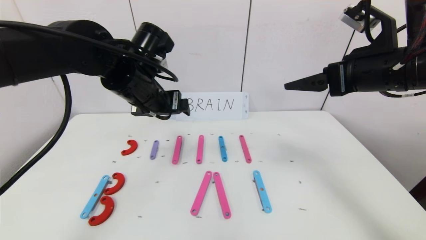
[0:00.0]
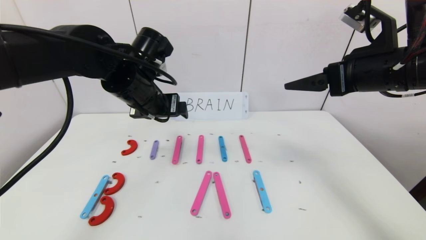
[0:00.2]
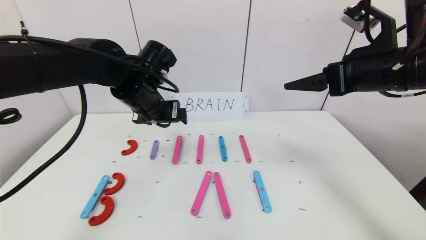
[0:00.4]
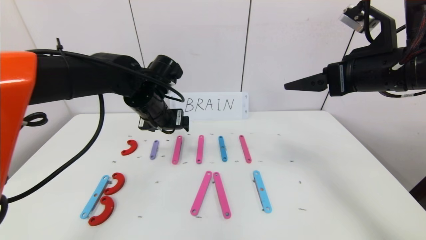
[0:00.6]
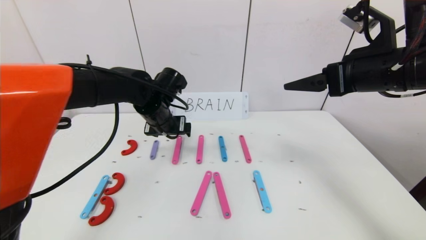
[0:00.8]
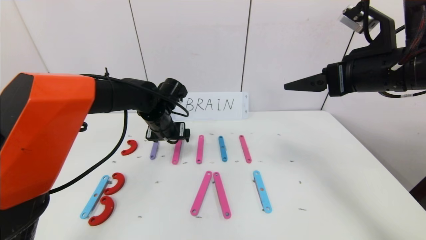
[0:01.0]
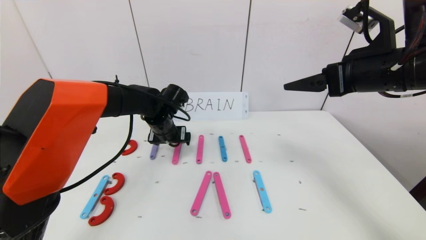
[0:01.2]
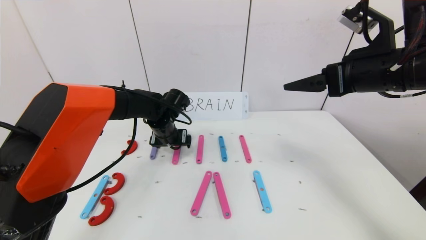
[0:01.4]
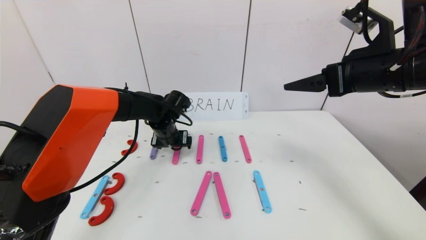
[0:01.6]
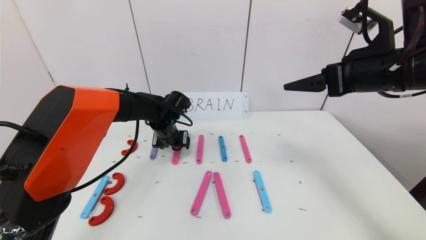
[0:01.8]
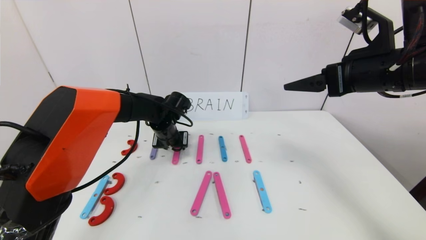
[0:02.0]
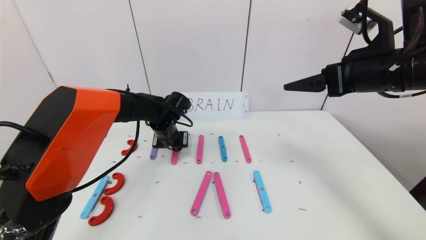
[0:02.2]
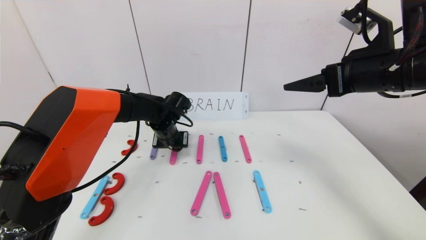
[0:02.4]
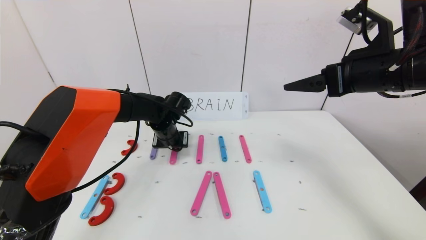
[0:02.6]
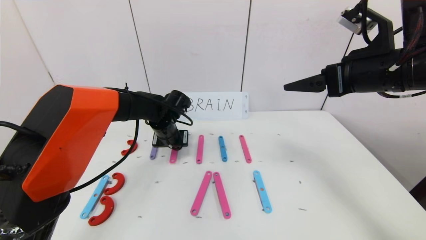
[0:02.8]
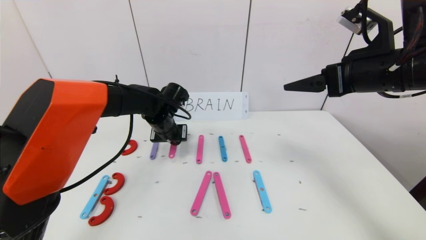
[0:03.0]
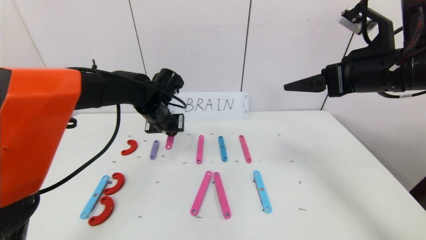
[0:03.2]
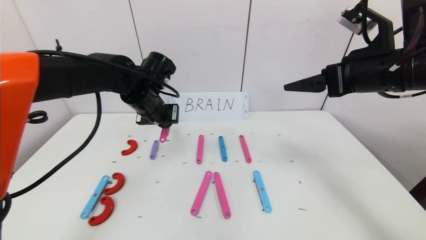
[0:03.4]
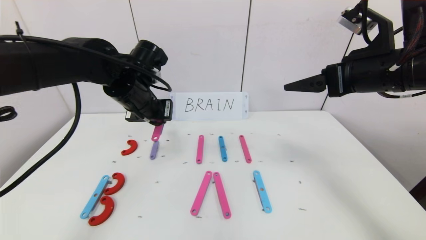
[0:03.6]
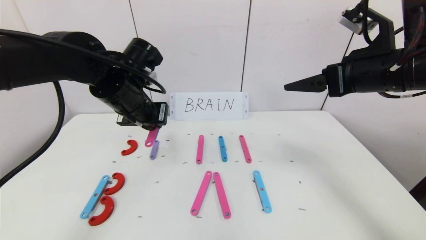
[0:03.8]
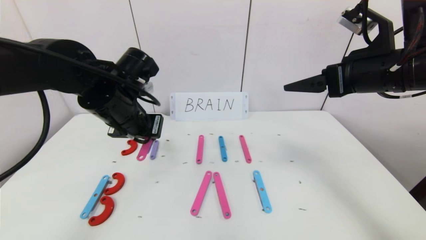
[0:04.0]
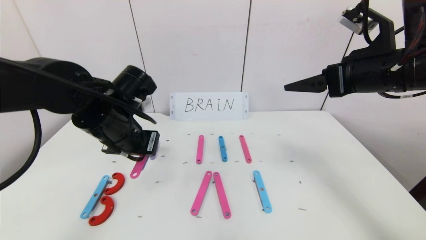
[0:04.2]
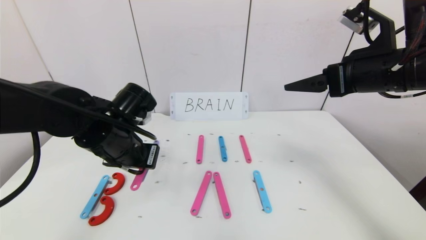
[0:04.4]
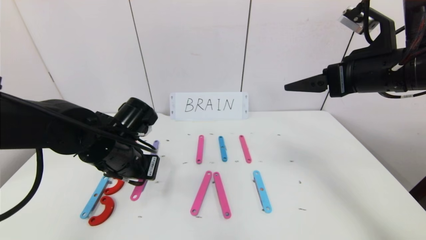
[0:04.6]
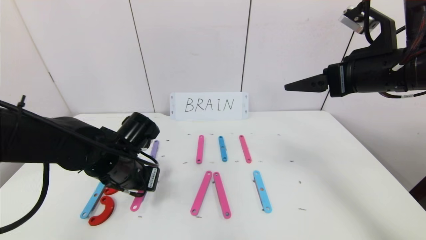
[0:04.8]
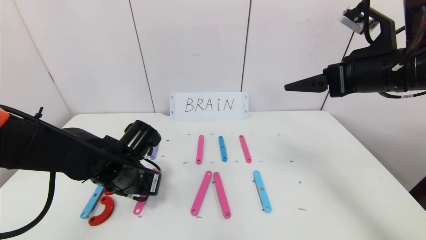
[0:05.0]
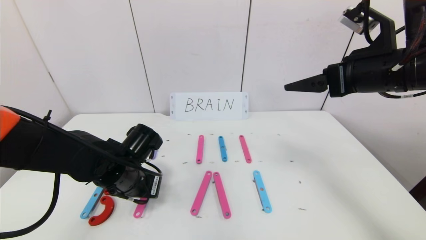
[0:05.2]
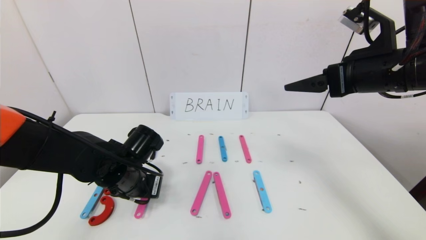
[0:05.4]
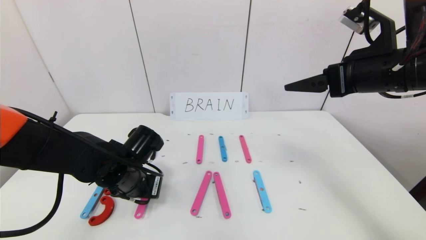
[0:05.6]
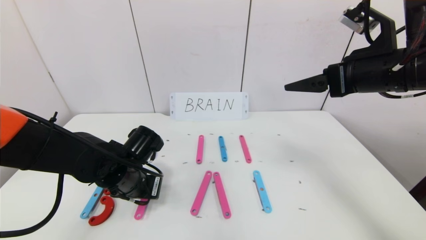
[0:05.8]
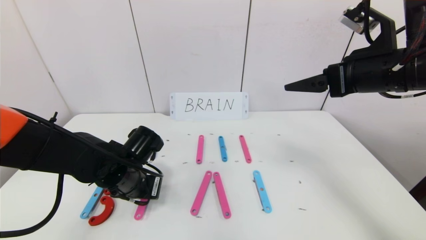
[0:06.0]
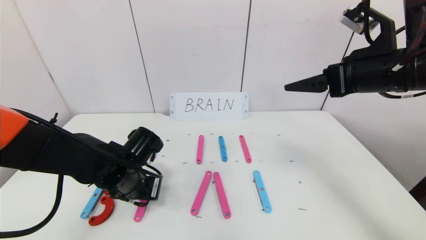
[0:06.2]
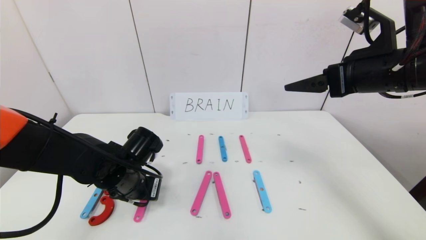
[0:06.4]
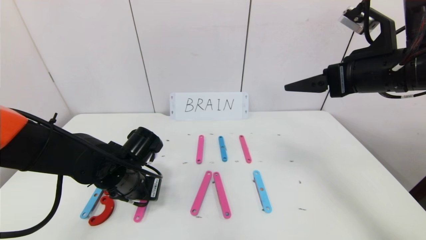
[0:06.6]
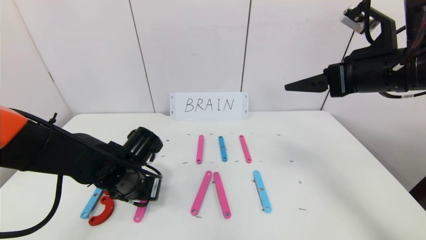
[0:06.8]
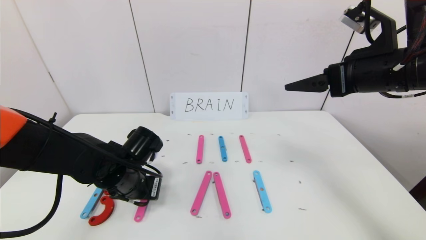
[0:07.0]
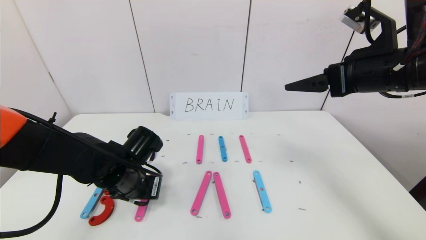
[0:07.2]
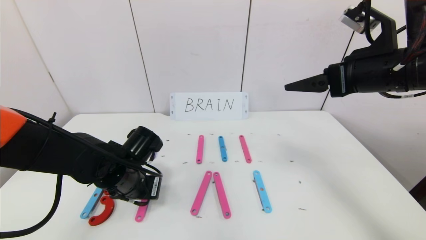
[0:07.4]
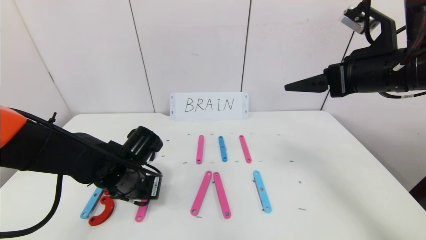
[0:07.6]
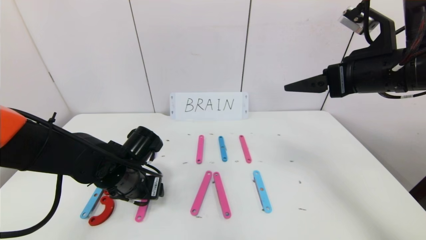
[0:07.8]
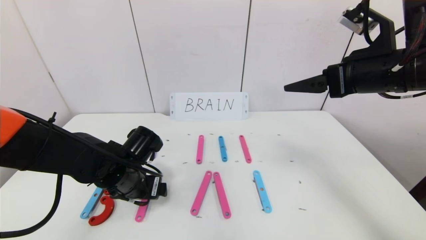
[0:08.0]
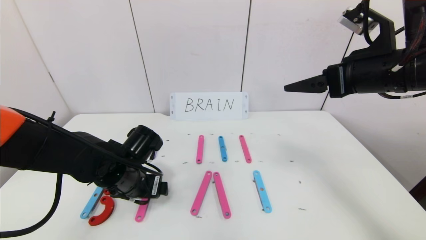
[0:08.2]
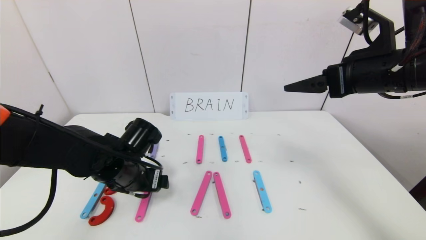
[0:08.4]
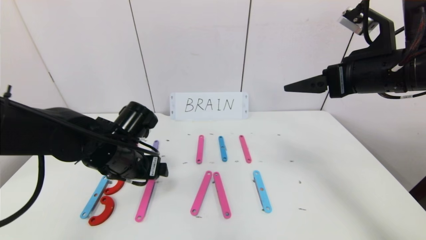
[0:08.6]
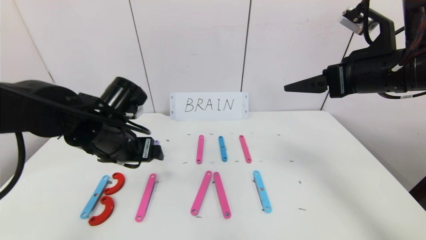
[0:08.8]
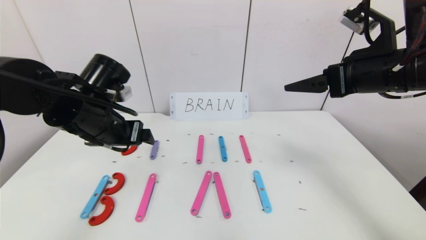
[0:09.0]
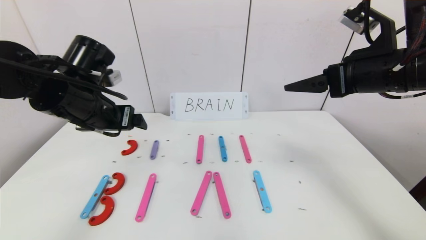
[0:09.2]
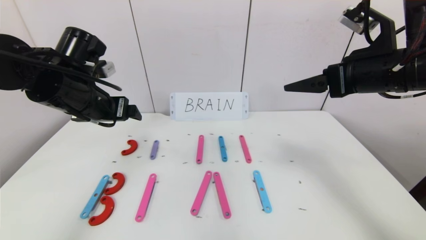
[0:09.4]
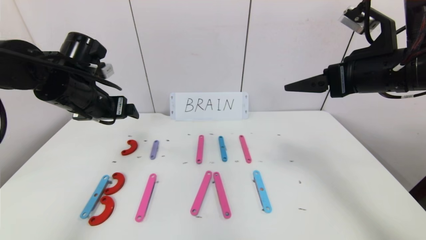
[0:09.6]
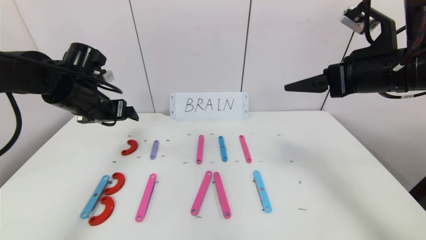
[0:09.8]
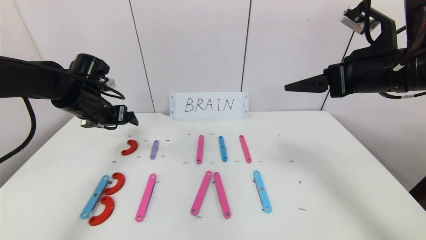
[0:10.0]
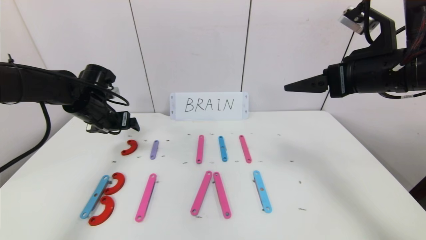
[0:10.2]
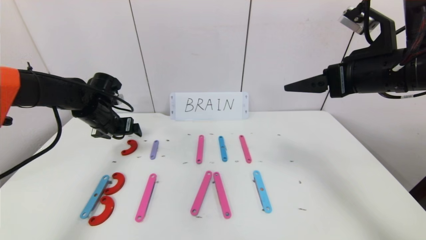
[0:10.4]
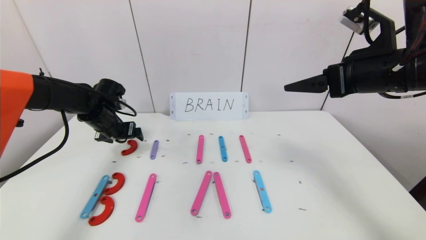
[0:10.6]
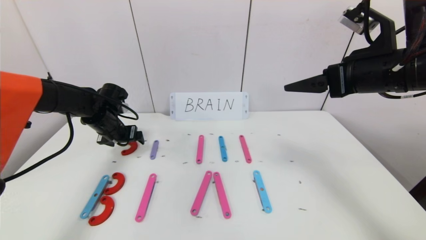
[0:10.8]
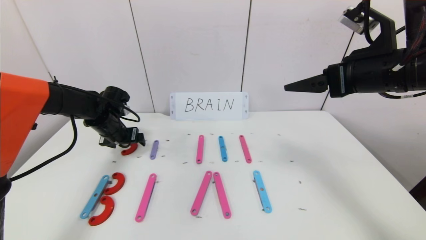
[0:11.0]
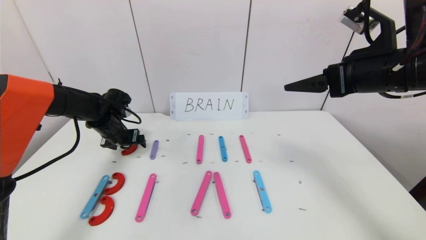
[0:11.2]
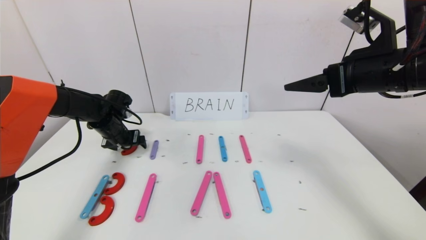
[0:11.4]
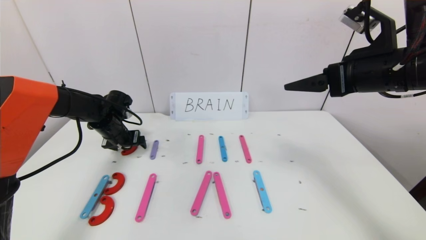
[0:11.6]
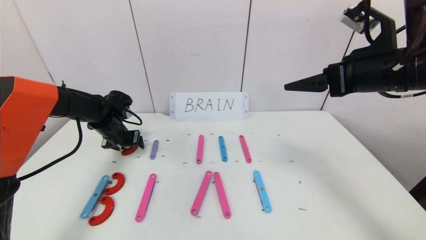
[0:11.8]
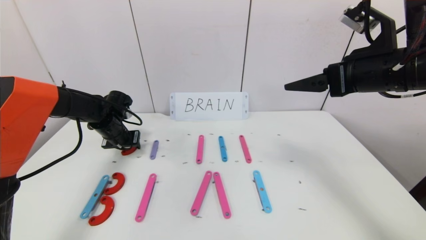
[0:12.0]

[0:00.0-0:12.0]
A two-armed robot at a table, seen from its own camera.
Task of the whole recording: rearrange the word baai as brain.
0:00.0 to 0:01.6: The left gripper goes about 20 cm downward and forward.
0:01.6 to 0:03.0: The left gripper closes.
0:03.0 to 0:04.4: The left gripper moves backward, some 15 cm.
0:04.4 to 0:06.0: The left gripper travels downward by roughly 10 cm.
0:06.0 to 0:07.6: The left gripper opens.
0:07.6 to 0:09.0: The left gripper moves upward, roughly 15 cm, and opens its fingers.
0:09.0 to 0:10.4: The left gripper shifts roughly 15 cm forward, to the left and downward.
0:10.4 to 0:12.0: The left gripper is displaced downward by approximately 5 cm, and closes up.

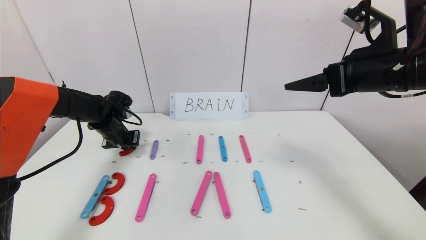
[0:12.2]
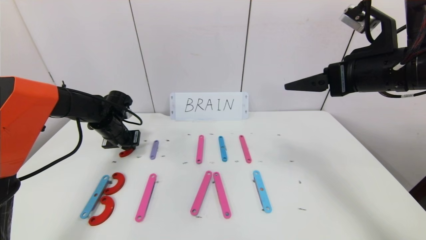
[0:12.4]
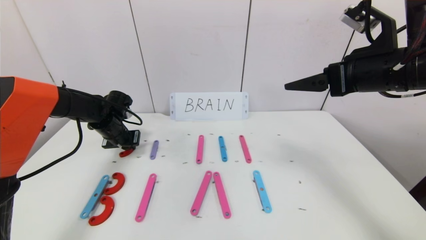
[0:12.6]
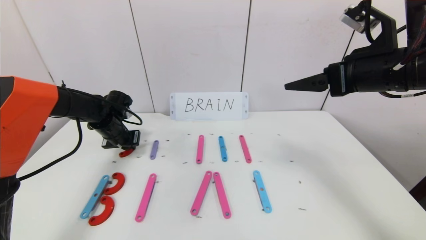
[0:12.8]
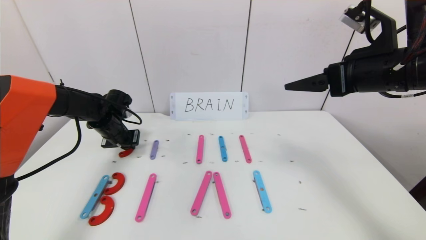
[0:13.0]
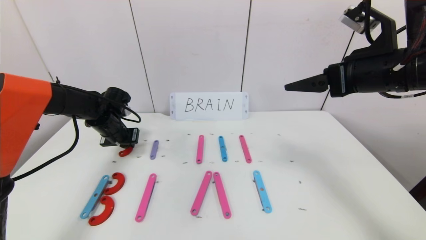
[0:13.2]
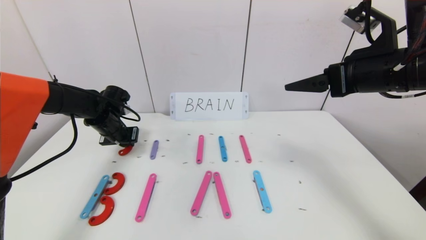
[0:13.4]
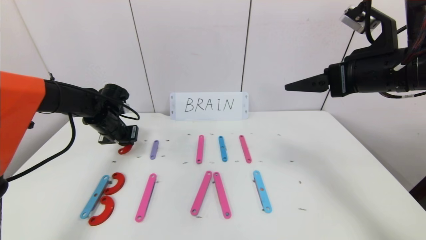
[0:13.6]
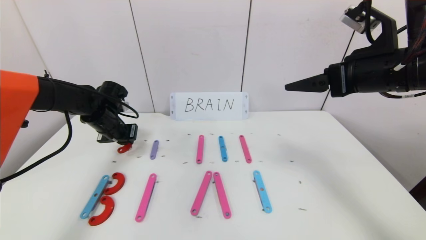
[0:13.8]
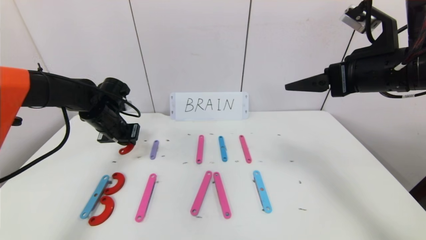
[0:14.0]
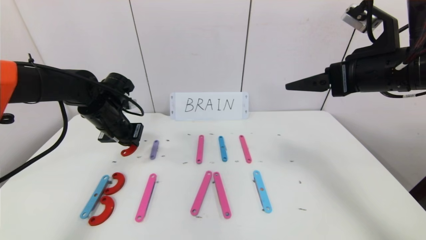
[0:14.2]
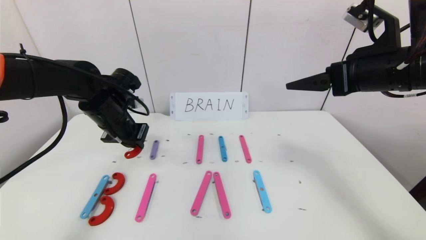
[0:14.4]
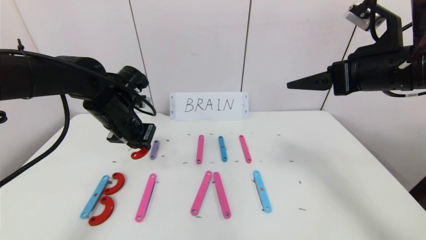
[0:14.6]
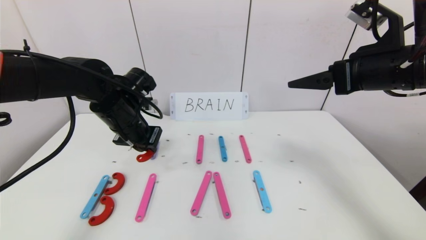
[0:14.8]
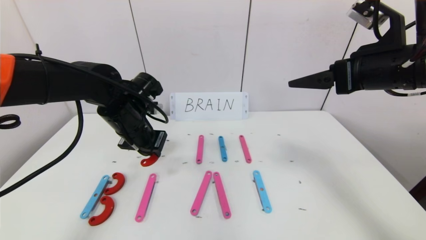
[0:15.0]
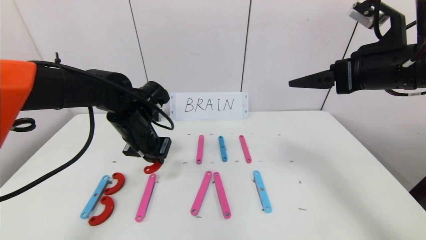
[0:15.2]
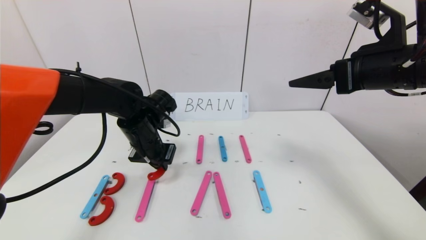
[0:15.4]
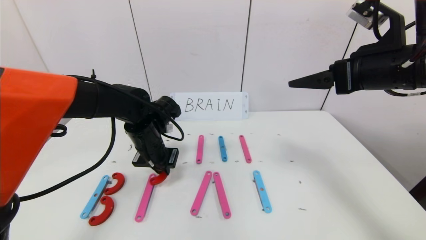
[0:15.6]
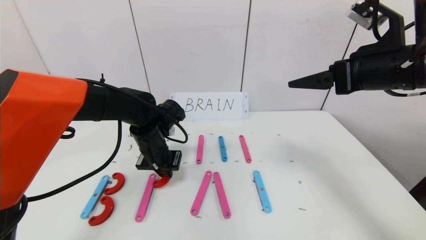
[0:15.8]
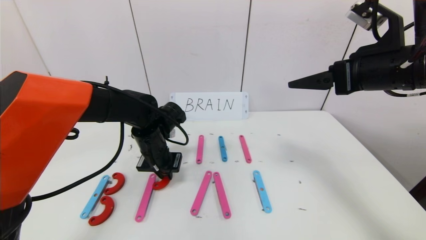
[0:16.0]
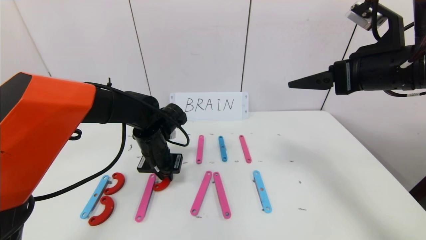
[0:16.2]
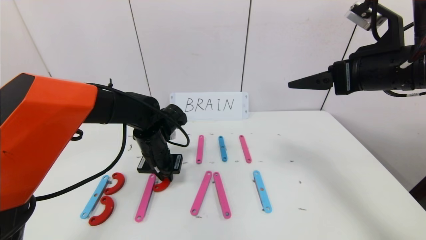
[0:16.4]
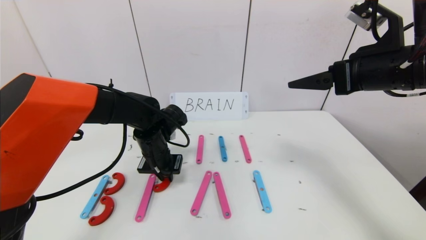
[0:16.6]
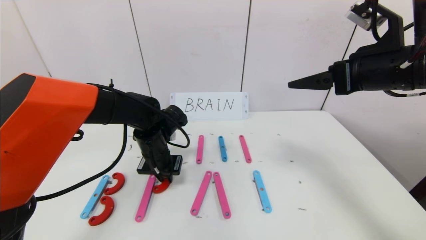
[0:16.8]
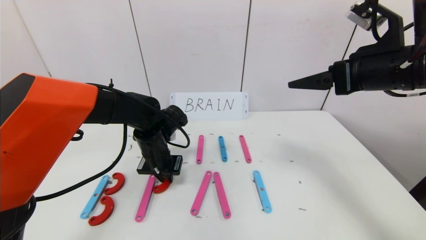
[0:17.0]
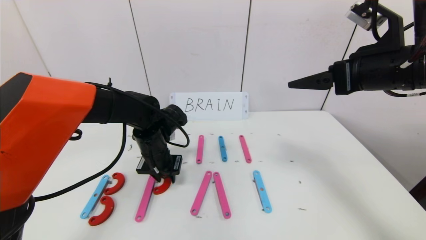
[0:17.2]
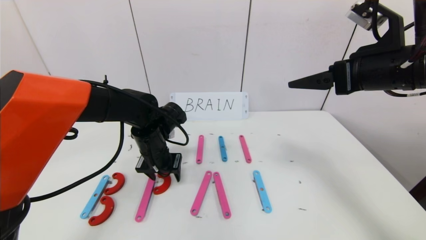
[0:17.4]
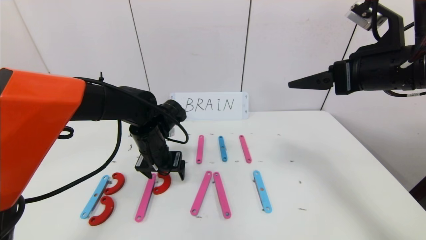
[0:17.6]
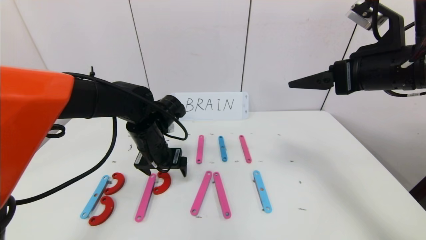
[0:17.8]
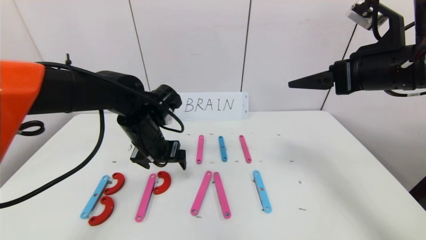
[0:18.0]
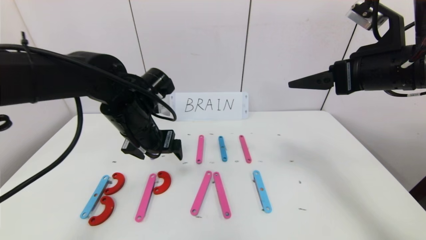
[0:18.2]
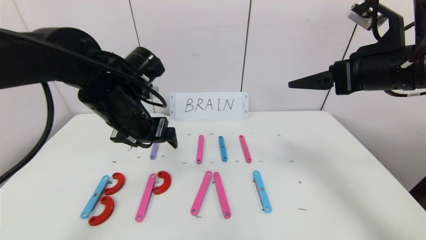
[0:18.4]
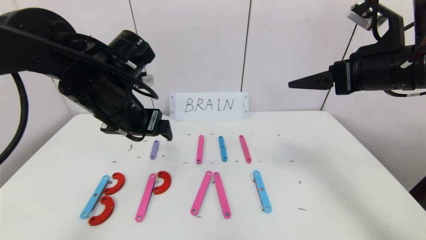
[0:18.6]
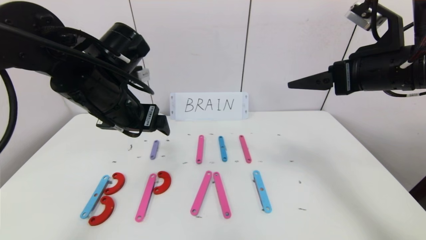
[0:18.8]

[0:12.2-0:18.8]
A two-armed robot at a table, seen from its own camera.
Task of the whole recording: rearrange the word baai as brain.
0:12.2 to 0:13.8: The grippers stay close to where they were, moving slightly.
0:13.8 to 0:15.4: The left gripper heads to the right and backward, covering approximately 15 cm.
0:15.4 to 0:17.2: There are only small adjustments of the grippers.
0:17.2 to 0:18.8: The left gripper heads upward and backward, covering roughly 15 cm, and opens.
